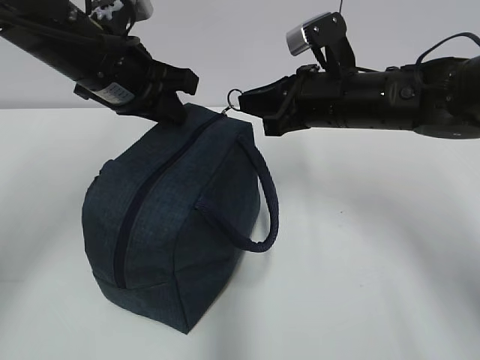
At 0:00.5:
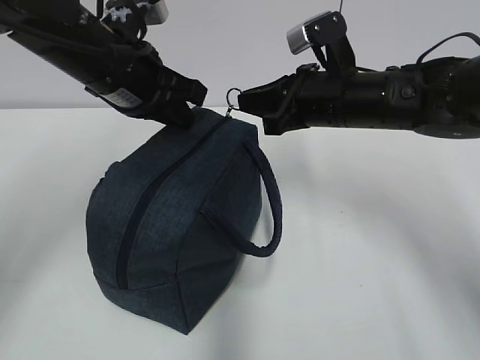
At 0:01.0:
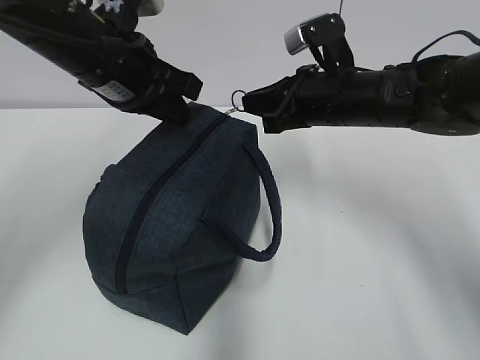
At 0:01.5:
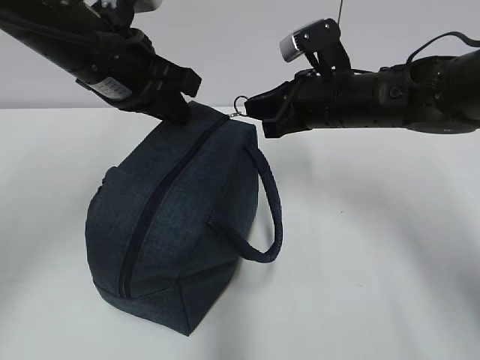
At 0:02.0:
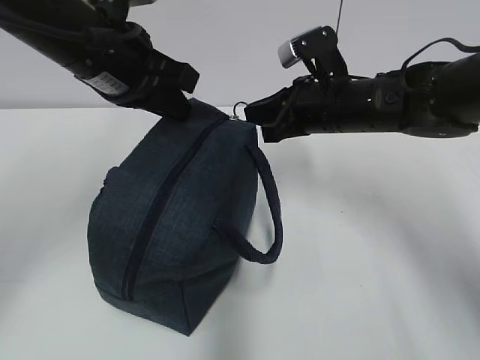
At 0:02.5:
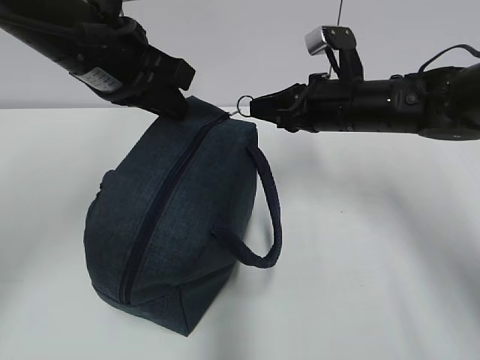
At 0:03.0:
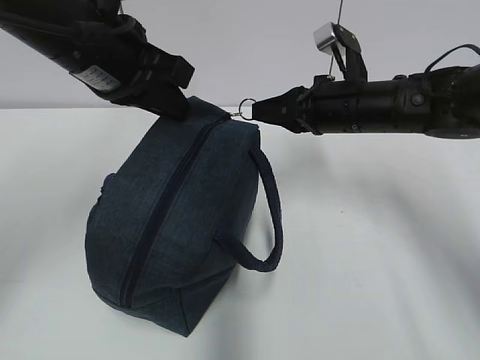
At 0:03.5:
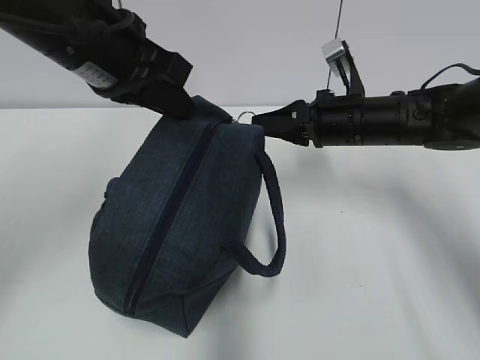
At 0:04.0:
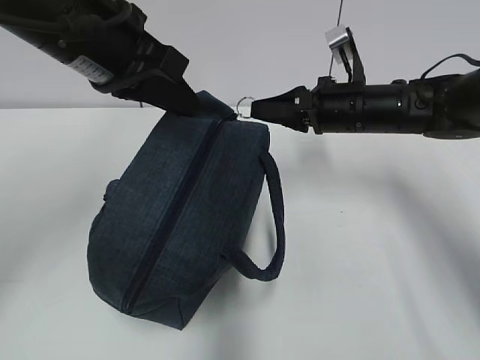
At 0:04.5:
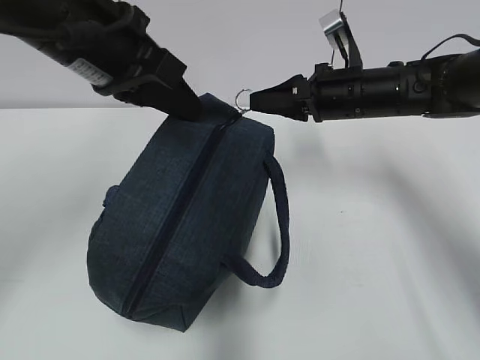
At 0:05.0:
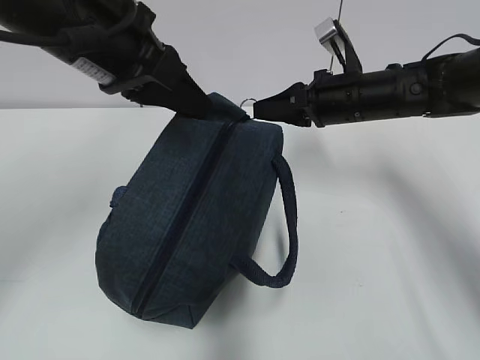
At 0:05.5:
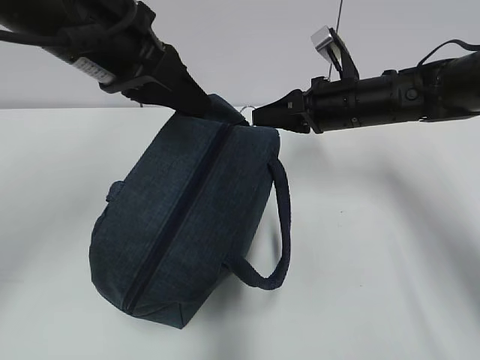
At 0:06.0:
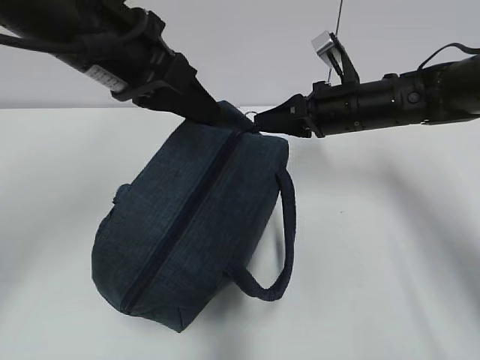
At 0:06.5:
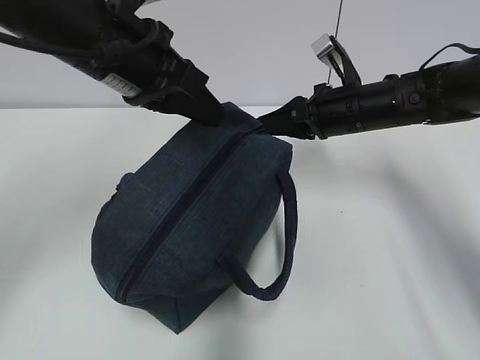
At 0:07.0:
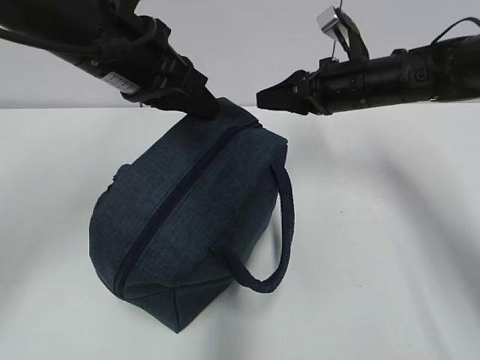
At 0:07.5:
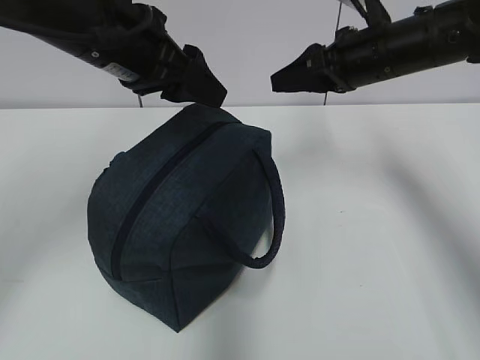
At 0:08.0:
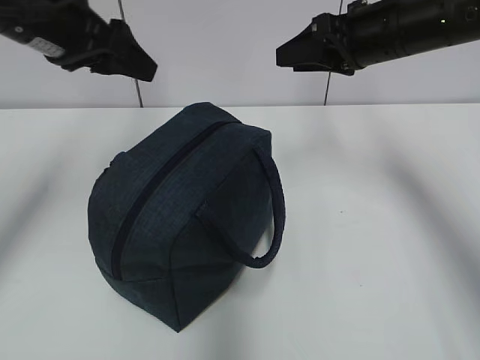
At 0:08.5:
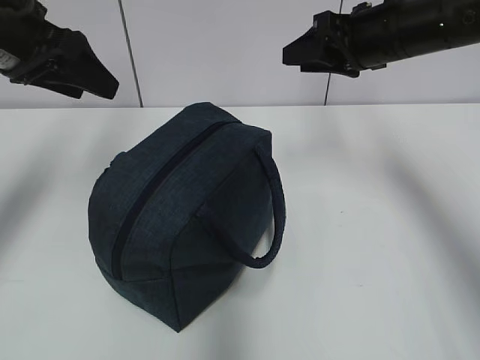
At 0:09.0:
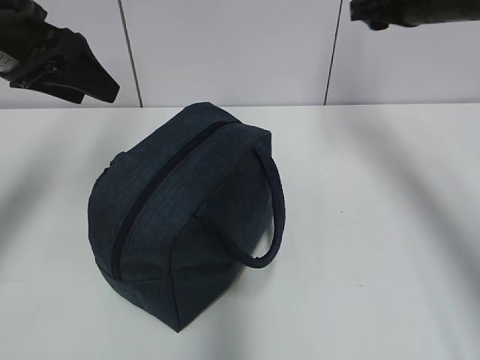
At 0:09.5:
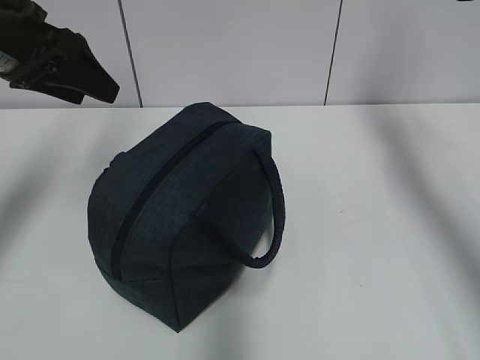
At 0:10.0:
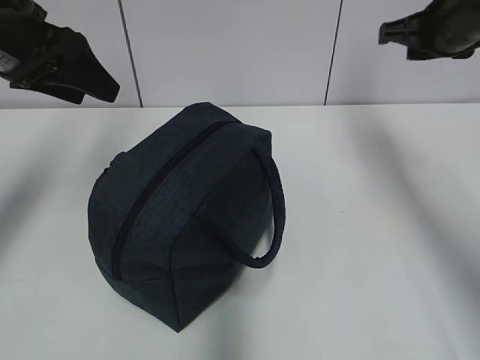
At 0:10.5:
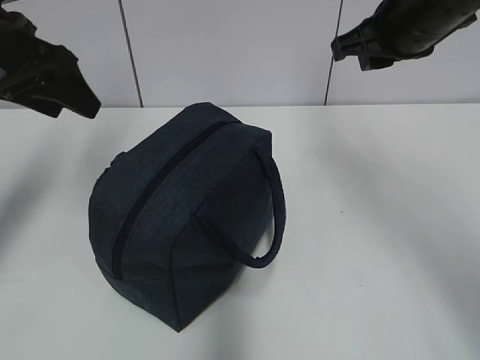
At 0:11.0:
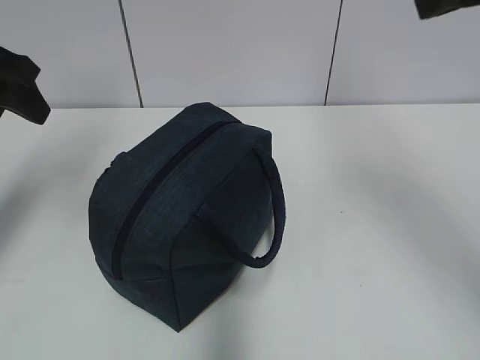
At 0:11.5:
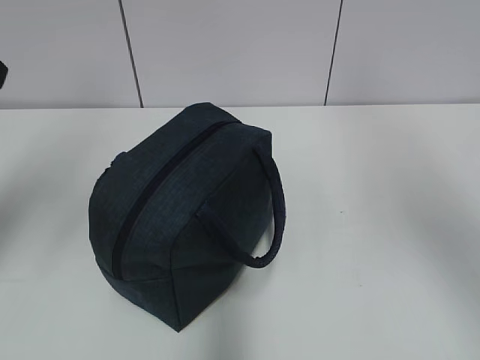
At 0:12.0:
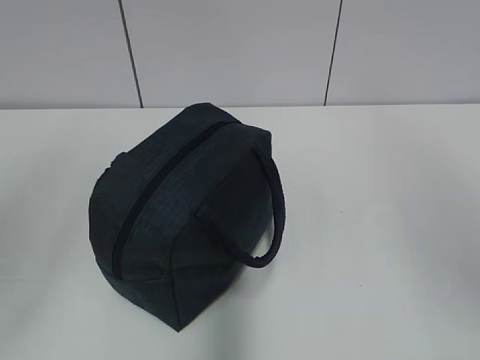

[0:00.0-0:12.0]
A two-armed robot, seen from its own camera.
Step, 0:00.0 to 0:06.5: Pull the zipper with your right hand.
0:00.0 to 0:02.0: The grippers stay close to where they were, moving slightly.
0:04.0 to 0:06.0: The grippers move only a little.
0:06.0 to 0:08.0: The left gripper heads to the left, covering some 5 cm, and opens its fingers; the right gripper shifts approximately 10 cm upward, and opens up.
0:08.0 to 0:10.0: The right gripper is displaced to the right by about 5 cm.
0:10.0 to 0:12.0: The right gripper goes about 35 cm backward and upward, while the left gripper goes roughly 25 cm backward.

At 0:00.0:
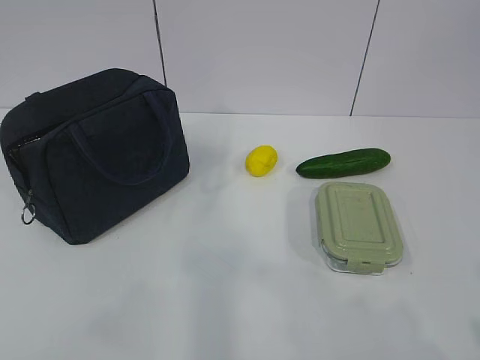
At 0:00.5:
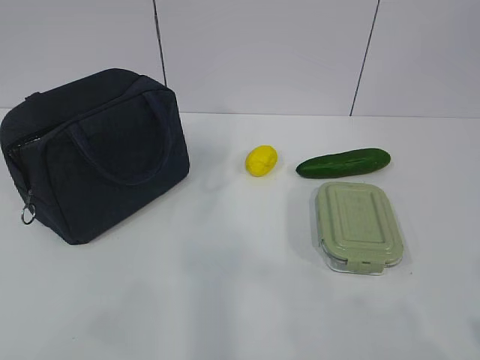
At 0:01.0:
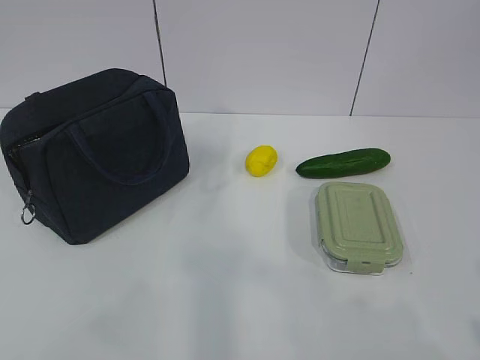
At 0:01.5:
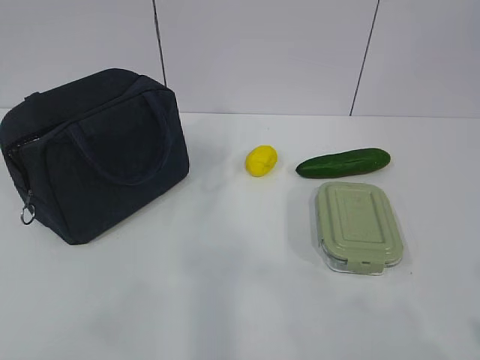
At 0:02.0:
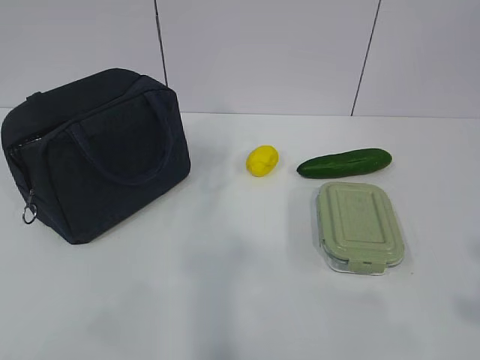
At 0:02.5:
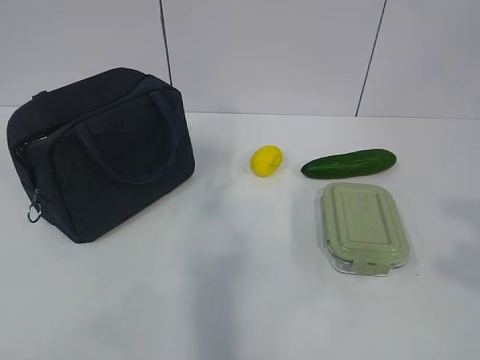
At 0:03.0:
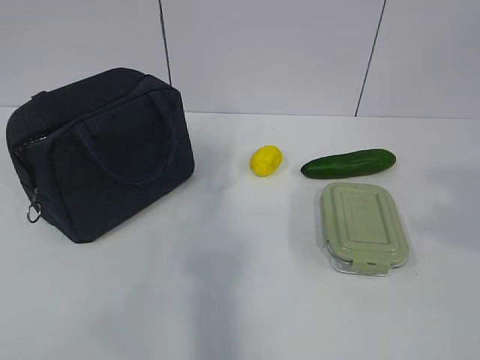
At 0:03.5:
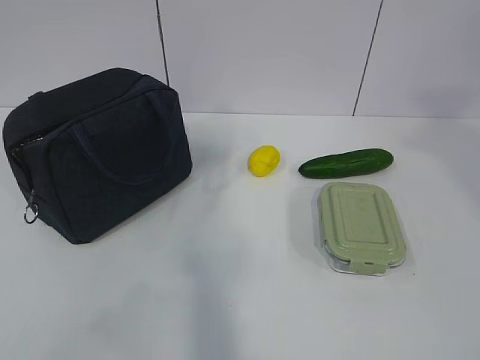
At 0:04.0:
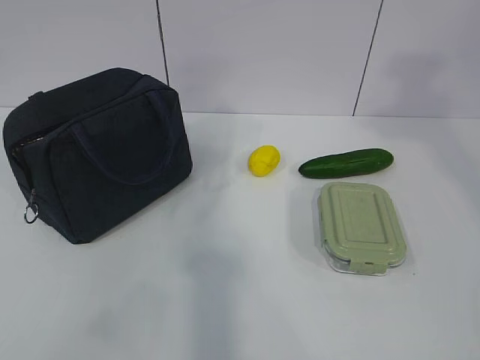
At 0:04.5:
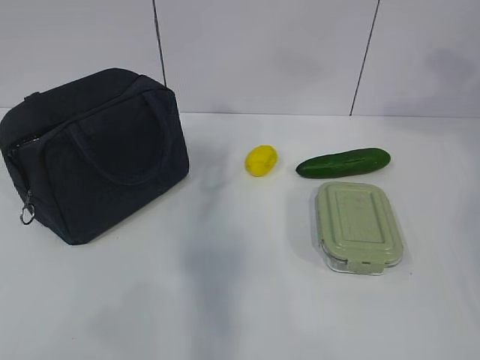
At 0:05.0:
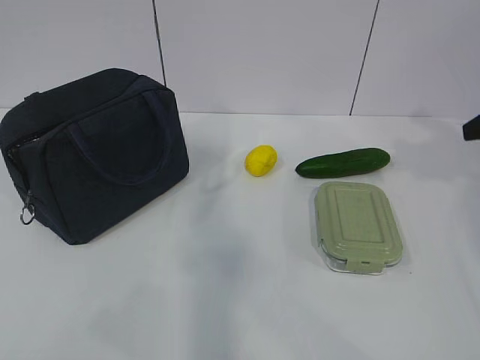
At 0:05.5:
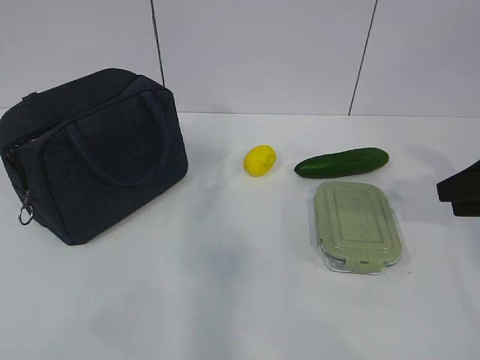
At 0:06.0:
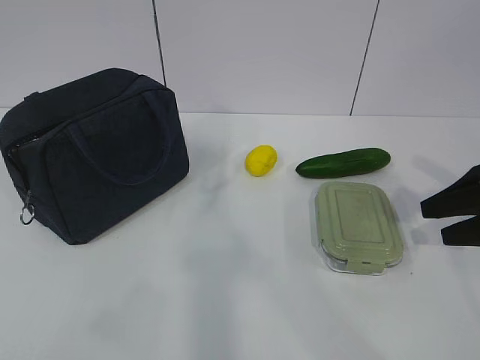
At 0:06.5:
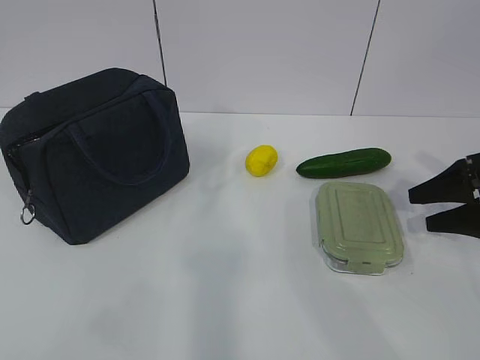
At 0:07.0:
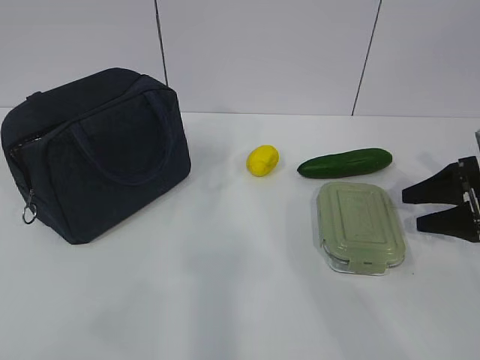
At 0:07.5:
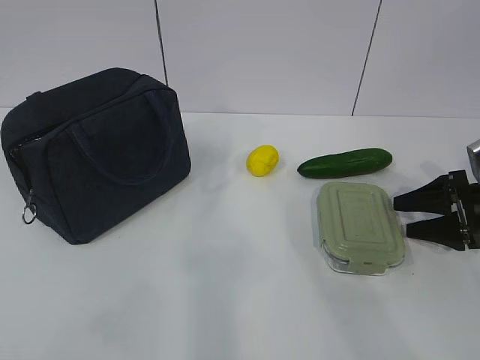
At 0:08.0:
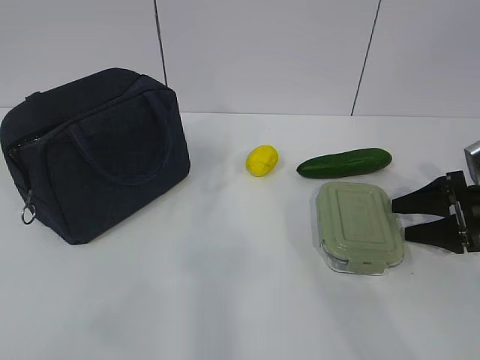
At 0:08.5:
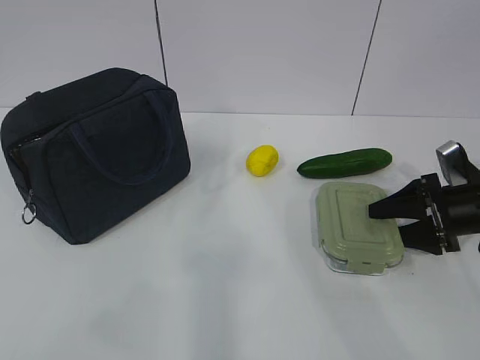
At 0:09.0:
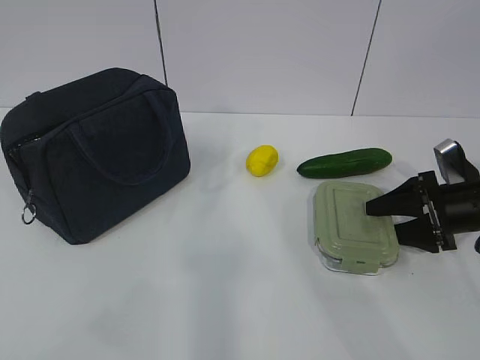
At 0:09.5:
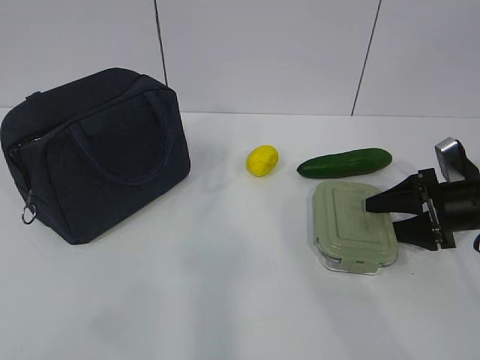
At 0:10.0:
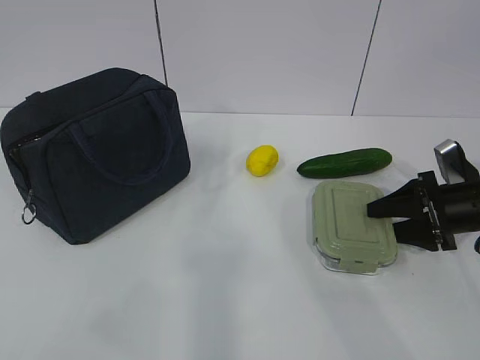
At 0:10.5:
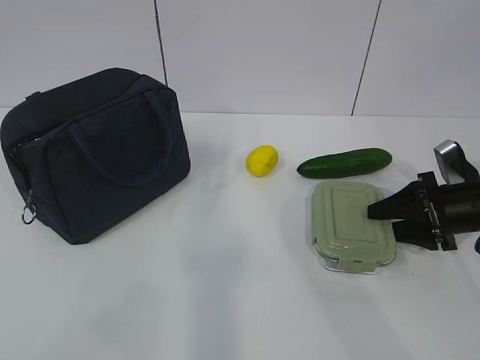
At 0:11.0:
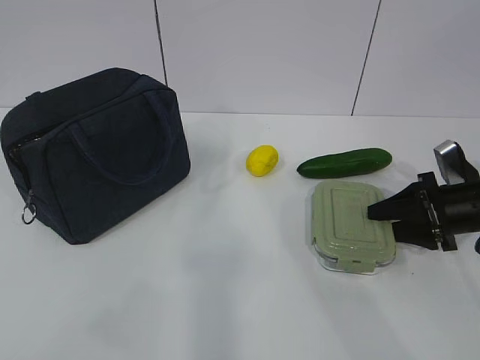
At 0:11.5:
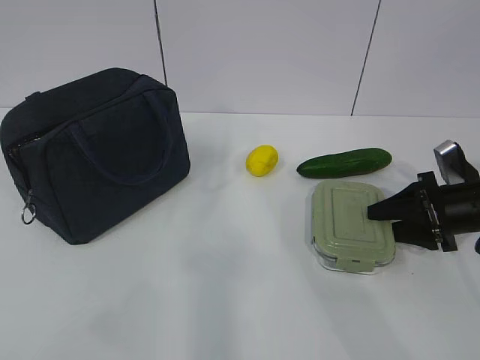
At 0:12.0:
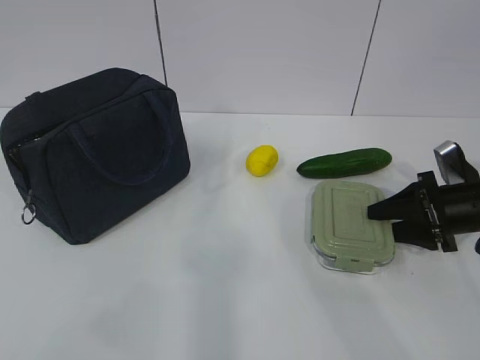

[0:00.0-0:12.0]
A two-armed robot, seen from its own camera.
0:02.0 to 0:04.0: The right gripper travels forward and upward by some 25 cm.
0:04.0 to 0:06.0: The right gripper is displaced downward by some 30 cm.
0:06.0 to 0:08.0: The right gripper heads downward and forward, covering roughly 10 cm.
0:08.0 to 0:10.0: The grippers stay close to where they were, moving slightly.
0:10.0 to 0:12.0: Both grippers stay about where they are.

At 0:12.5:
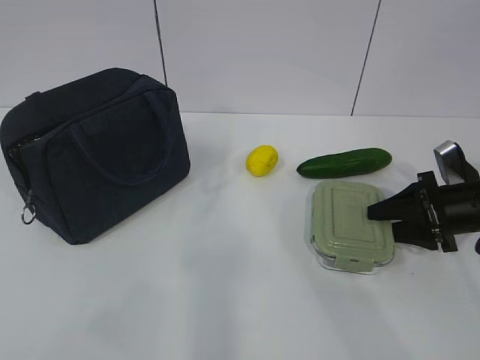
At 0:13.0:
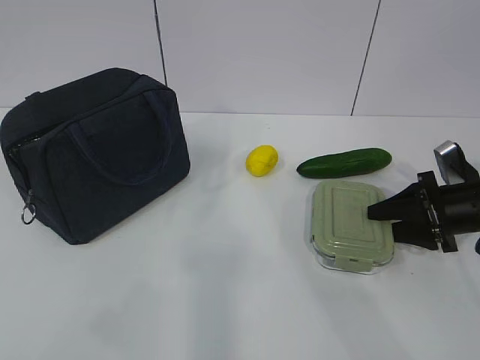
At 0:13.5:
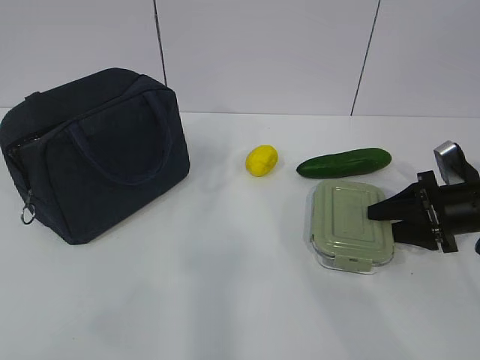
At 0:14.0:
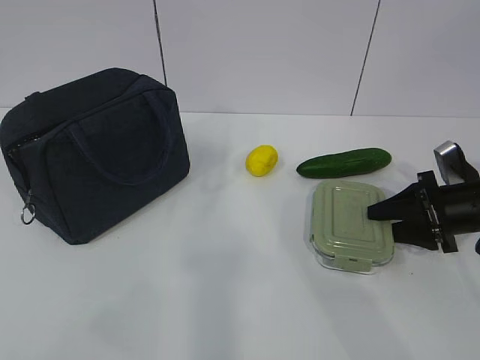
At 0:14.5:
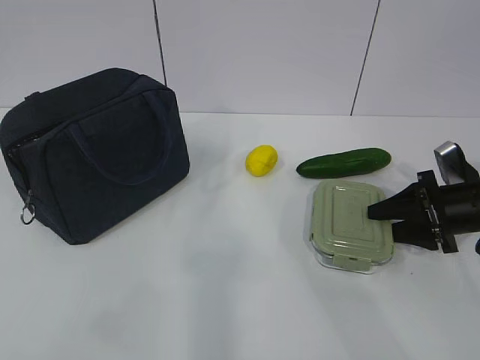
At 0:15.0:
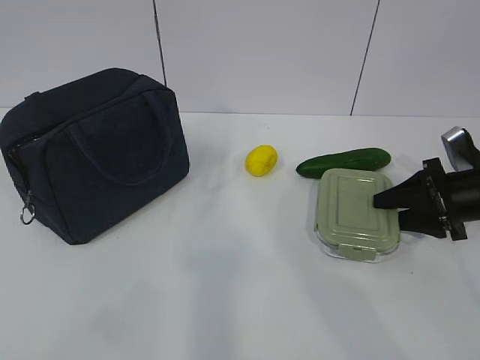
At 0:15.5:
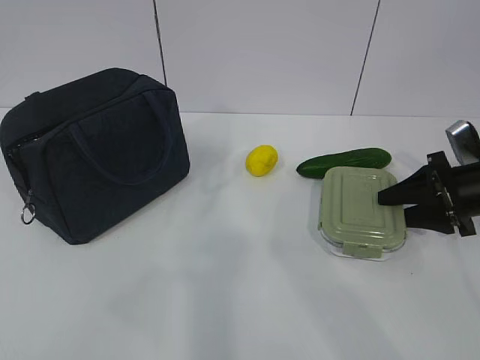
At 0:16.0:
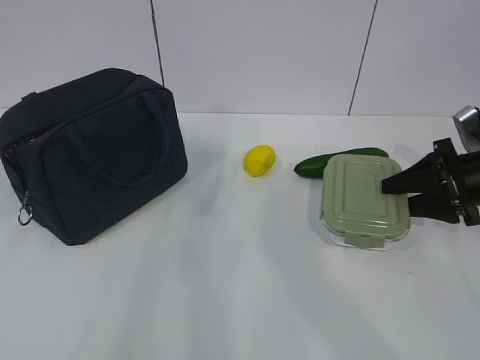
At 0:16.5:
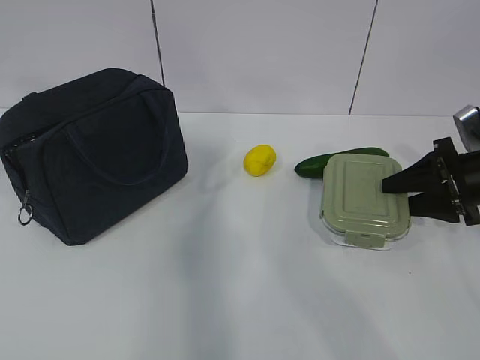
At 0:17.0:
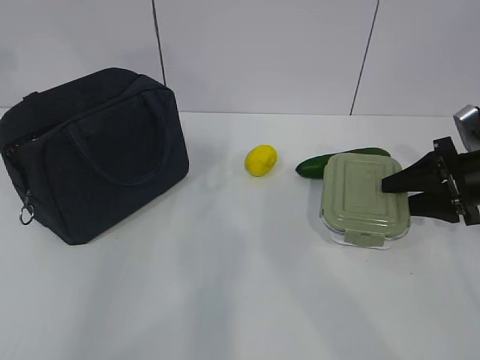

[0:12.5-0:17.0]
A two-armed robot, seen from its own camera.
0:12.5 to 0:14.5: The two grippers keep their place.
0:14.5 to 0:17.0: The left gripper is displaced forward by about 35 cm. The right gripper moves upward, roughly 5 cm.
